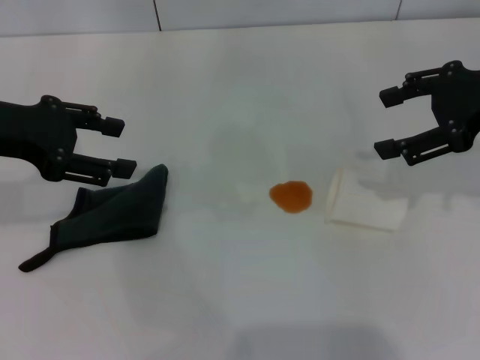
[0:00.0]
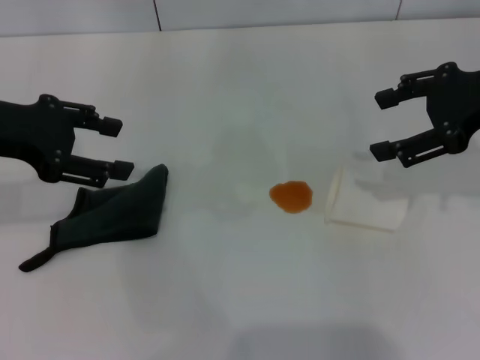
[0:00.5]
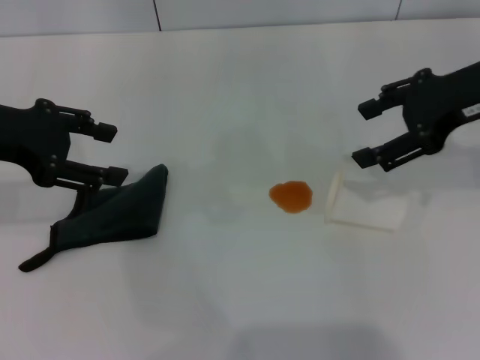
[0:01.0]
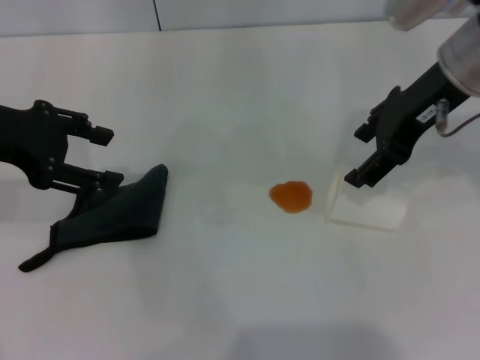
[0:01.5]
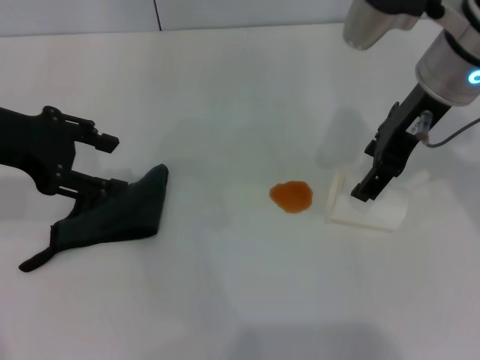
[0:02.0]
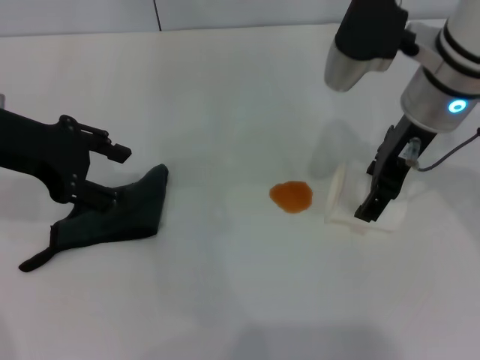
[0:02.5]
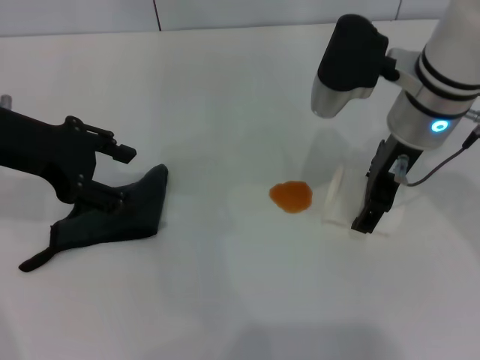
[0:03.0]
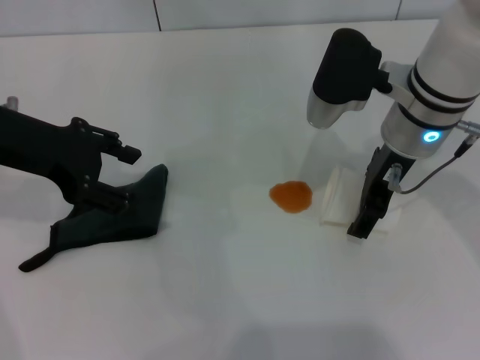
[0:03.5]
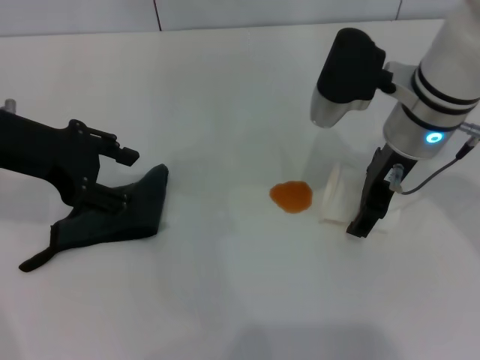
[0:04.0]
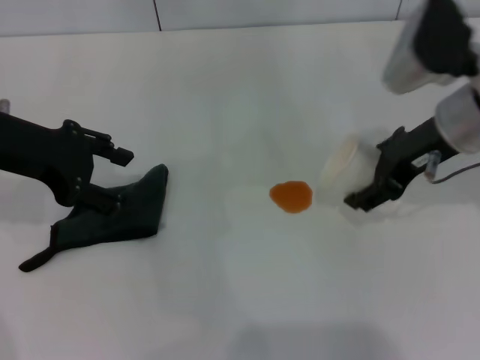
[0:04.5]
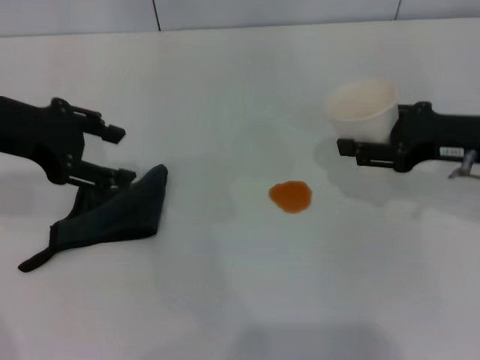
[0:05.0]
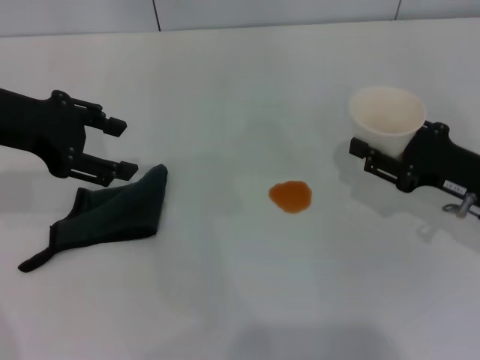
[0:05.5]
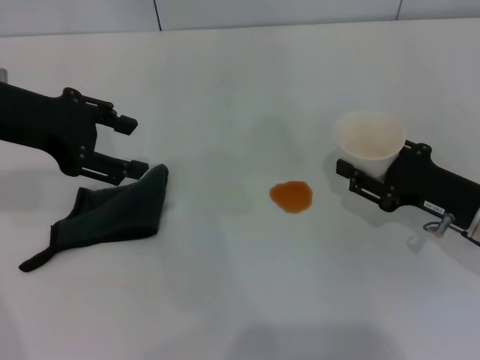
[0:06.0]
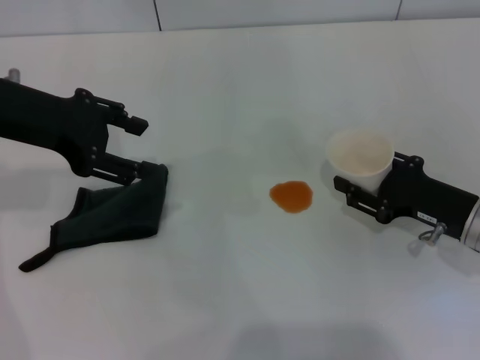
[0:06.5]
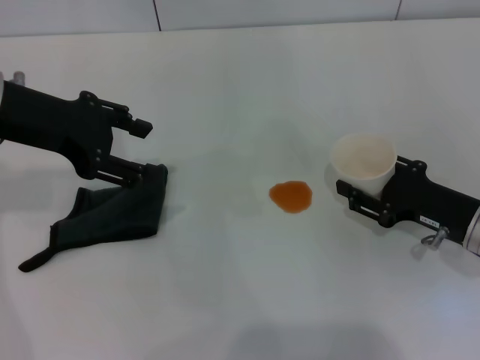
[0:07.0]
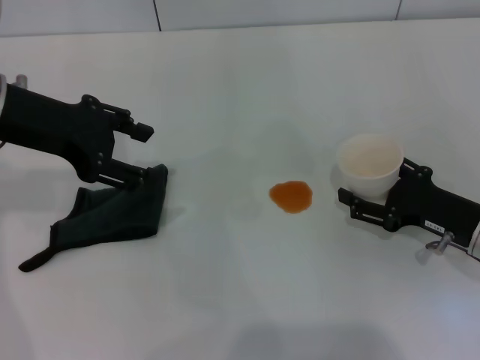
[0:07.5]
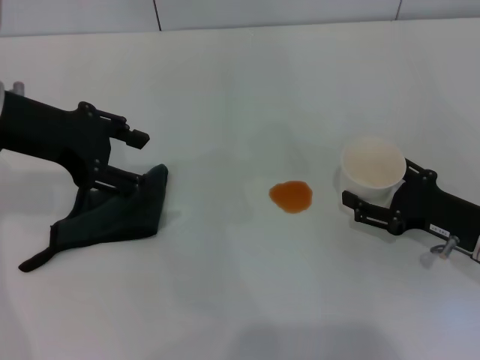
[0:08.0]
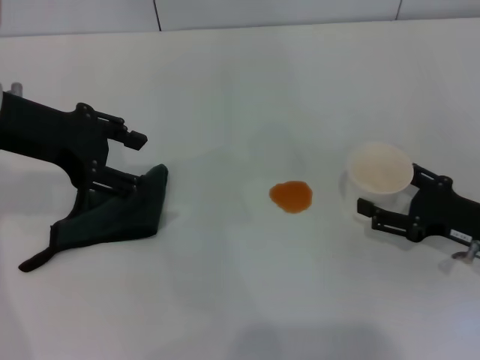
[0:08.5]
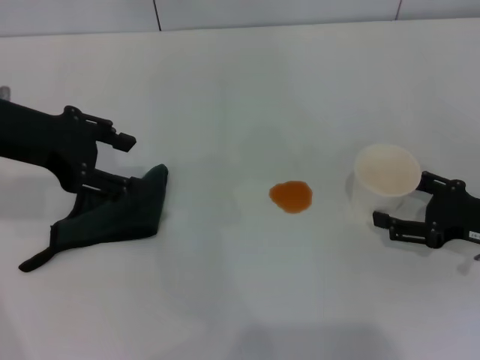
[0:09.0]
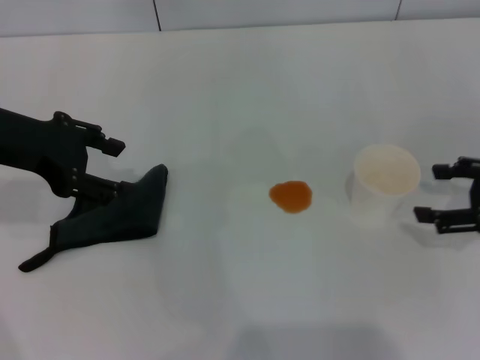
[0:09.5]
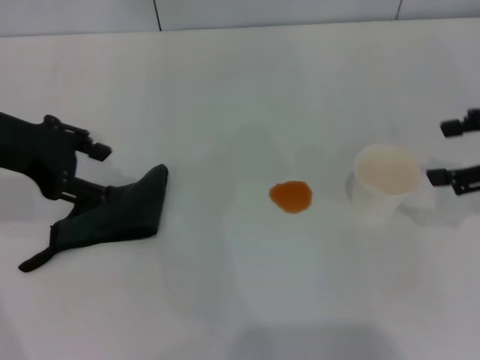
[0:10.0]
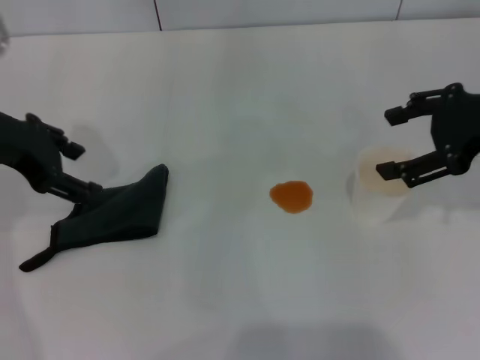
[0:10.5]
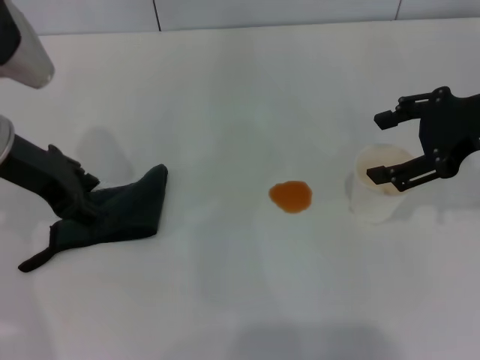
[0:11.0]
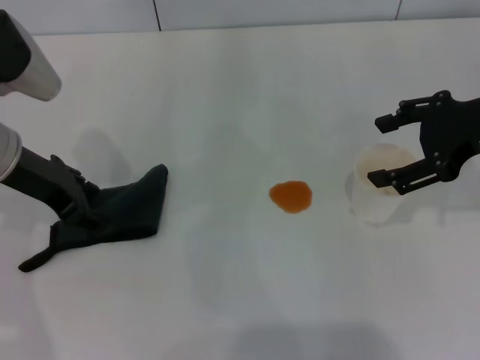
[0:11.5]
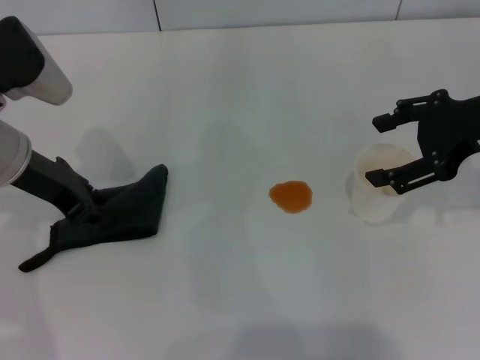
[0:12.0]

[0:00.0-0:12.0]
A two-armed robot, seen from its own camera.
Step, 0:00.0 to 0:03.5: Grasp the paper cup with the right gripper.
Step, 0:04.0 to 0:09.5: Stand the paper cup upright with the right gripper.
0:00.0 to 0:02.0: The right gripper heads to the left, covering roughly 10 cm.
0:02.0 to 0:04.0: The right gripper heads downward, covering some 5 cm.
0:04.0 to 0:06.0: The right gripper goes roughly 20 cm to the right, downward and backward, and closes.
0:06.0 to 0:08.0: The right gripper opens up.
0:08.0 to 0:10.0: The right gripper is displaced upward by some 15 cm.
0:10.0 to 0:12.0: The left gripper travels downward by some 5 cm, while the right gripper is displaced to the left by approximately 5 cm.

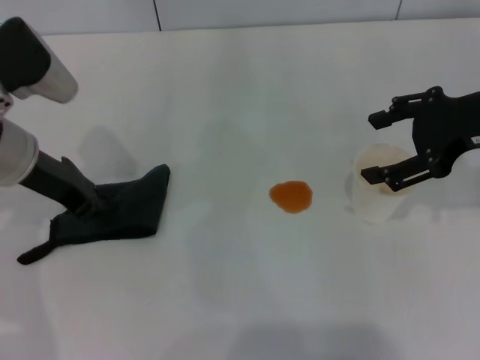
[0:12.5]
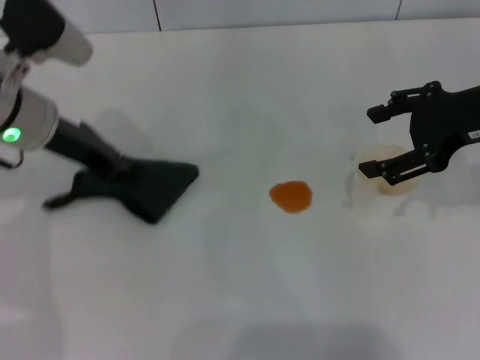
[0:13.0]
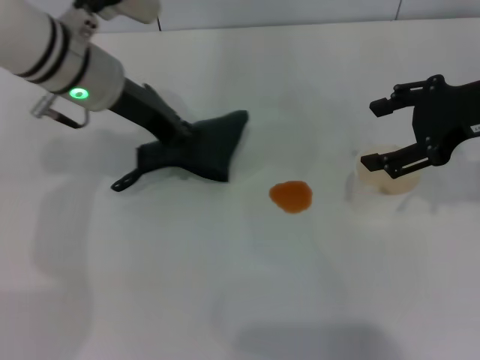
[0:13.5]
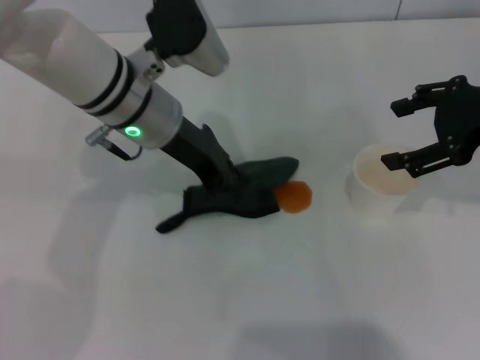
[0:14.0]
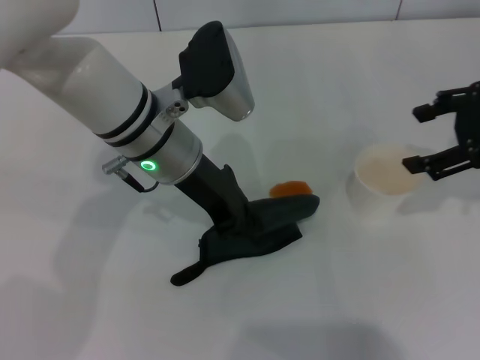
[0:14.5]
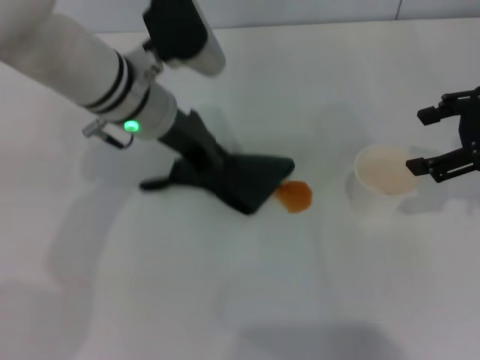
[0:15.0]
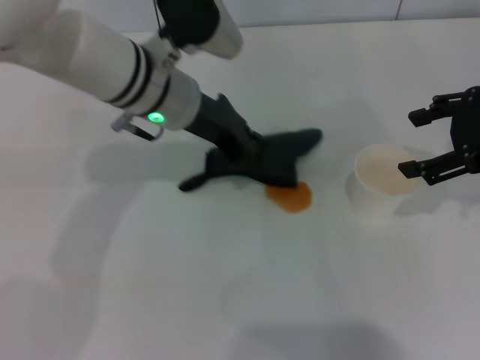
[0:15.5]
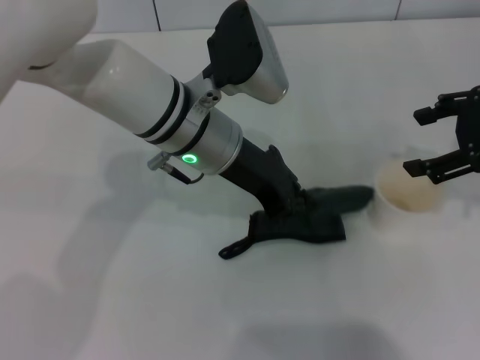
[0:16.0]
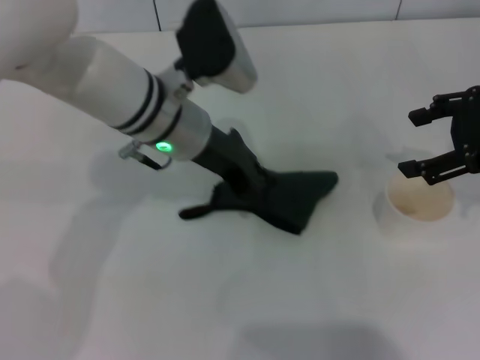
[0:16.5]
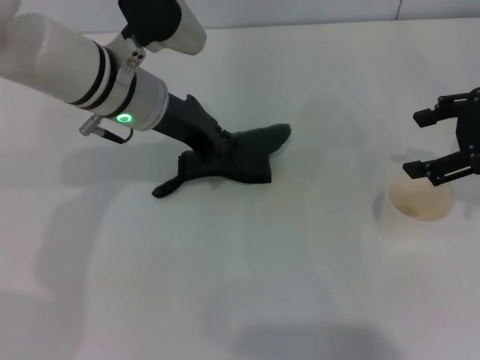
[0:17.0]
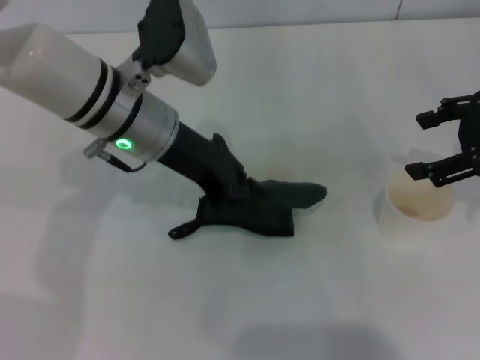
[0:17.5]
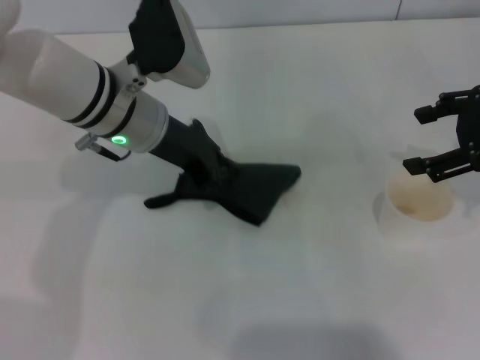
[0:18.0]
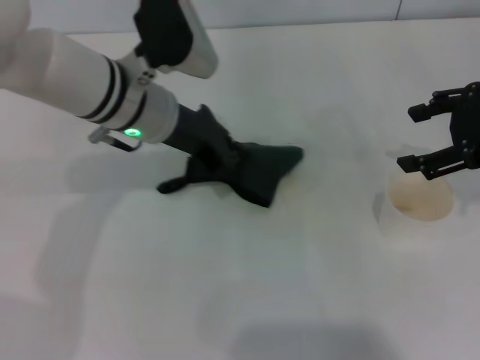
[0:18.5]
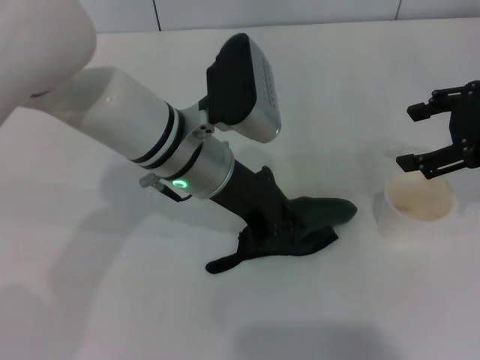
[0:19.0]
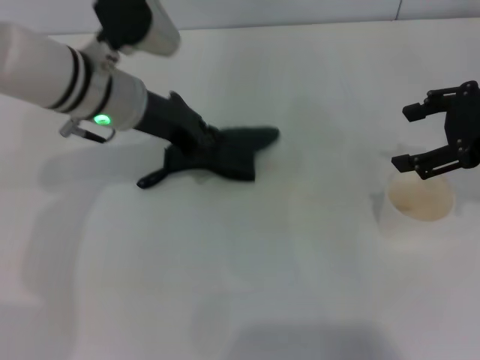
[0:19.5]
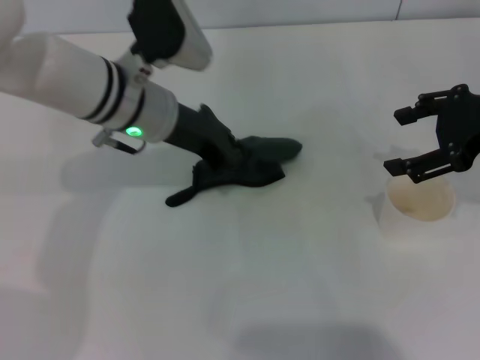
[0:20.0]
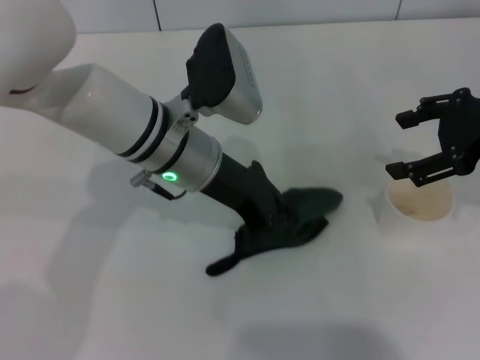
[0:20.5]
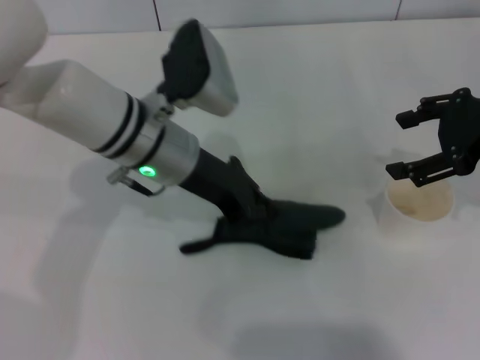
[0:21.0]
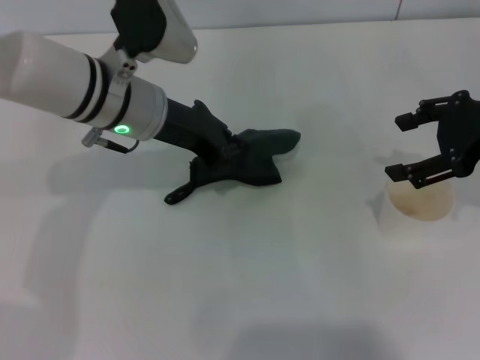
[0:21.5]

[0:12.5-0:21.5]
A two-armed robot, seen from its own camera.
0:12.5 to 0:14.5: The left gripper is displaced to the right by some 15 cm.
0:14.5 to 0:17.0: The left gripper moves about 5 cm.
0:17.0 to 0:19.5: The left gripper travels to the right and back again, about 5 cm each way.

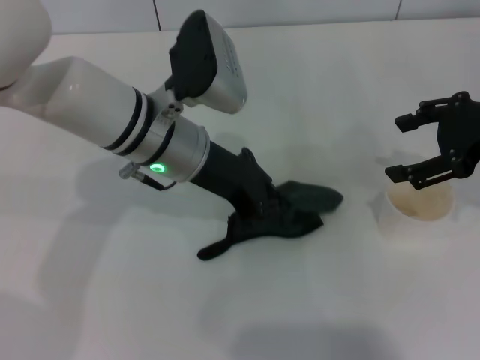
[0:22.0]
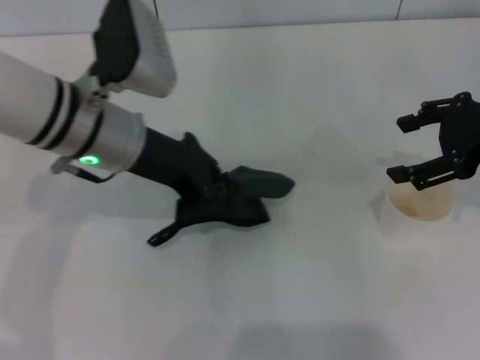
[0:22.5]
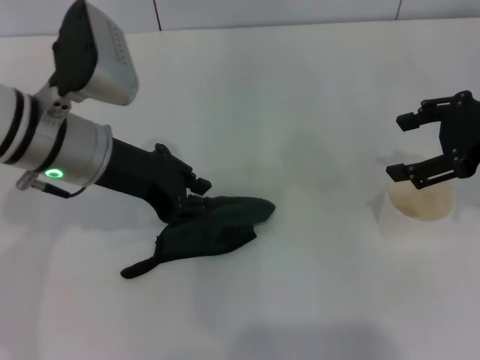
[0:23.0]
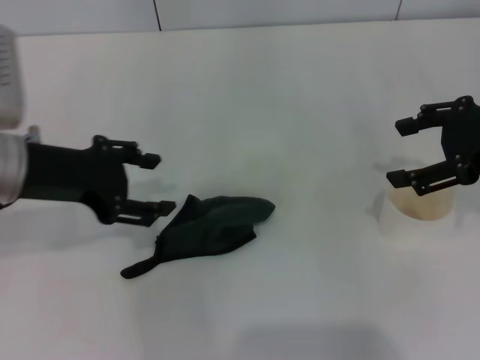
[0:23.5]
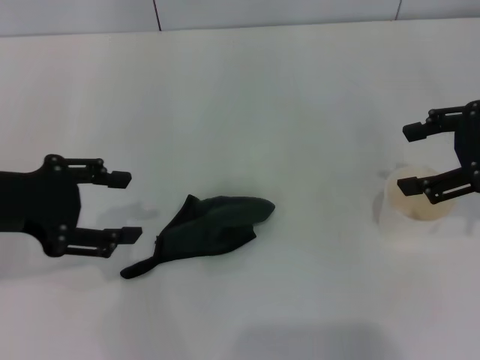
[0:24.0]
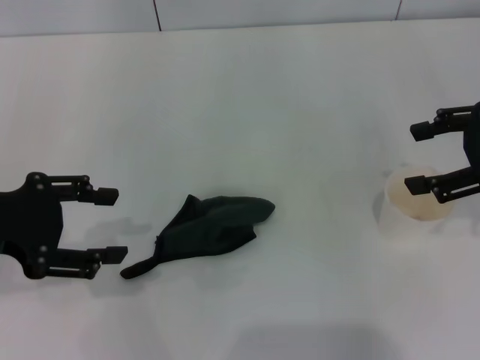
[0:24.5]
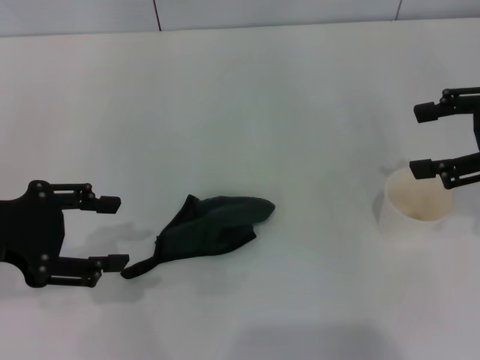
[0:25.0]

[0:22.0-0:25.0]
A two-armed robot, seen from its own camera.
Step, 0:22.5 to 0:23.5: Place the rag on the table with the left gripper.
0:22.0 to 0:23.5: The left gripper moves to the left, about 15 cm, and opens its fingers.
0:23.5 to 0:25.0: The left gripper heads to the left and backward, covering roughly 10 cm.

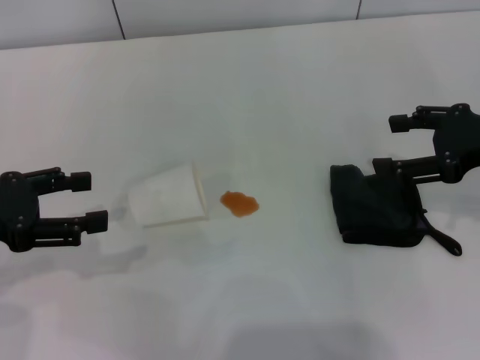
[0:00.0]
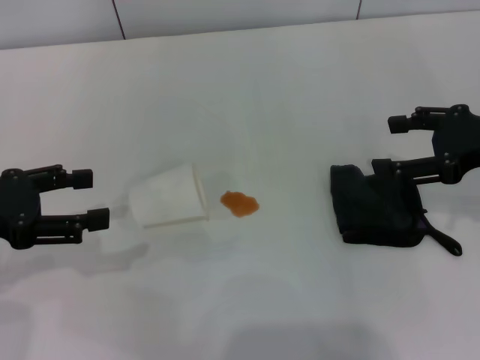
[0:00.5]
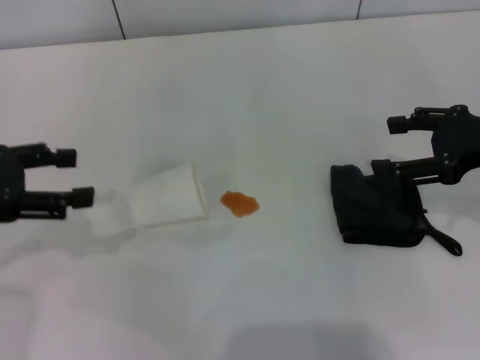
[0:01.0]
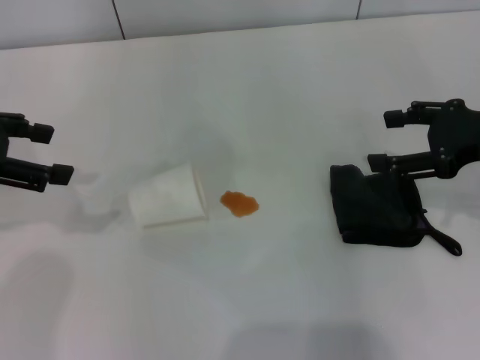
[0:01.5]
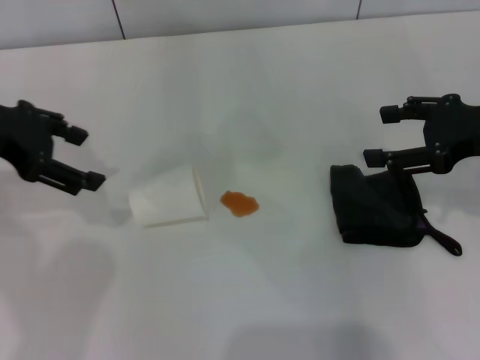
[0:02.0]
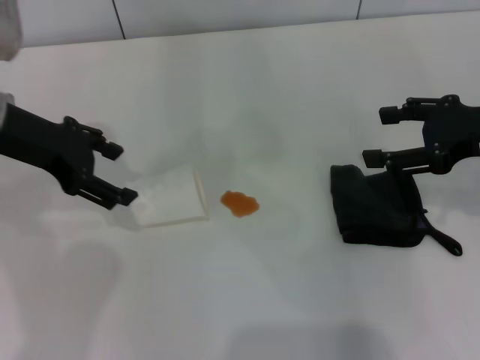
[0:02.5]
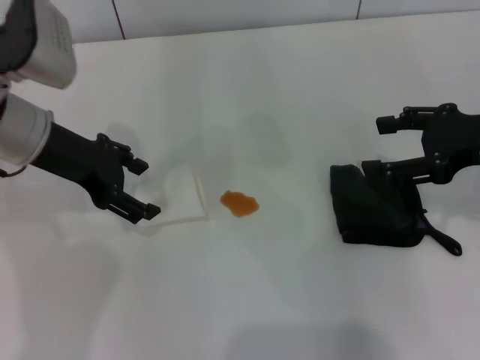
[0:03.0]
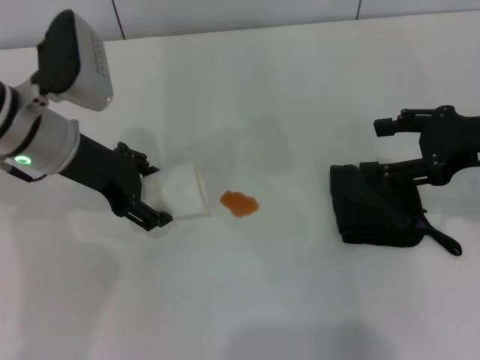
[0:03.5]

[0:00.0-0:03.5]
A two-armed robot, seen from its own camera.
0:00.0 to 0:02.0: The left gripper shifts about 10 cm forward, upward and to the right.
0:02.0 to 0:03.5: The left gripper goes roughly 10 cm downward and to the right.
